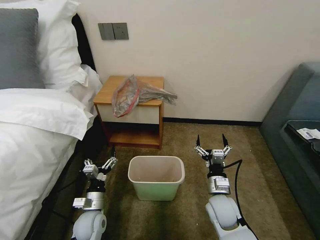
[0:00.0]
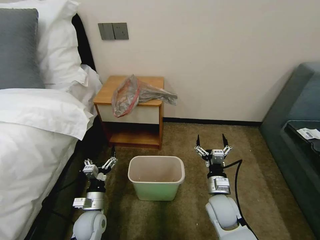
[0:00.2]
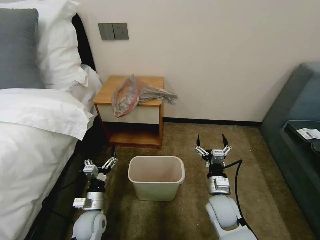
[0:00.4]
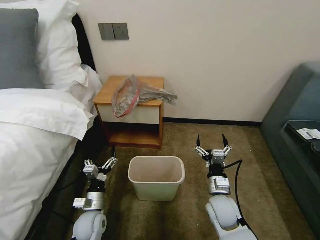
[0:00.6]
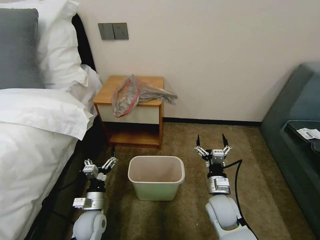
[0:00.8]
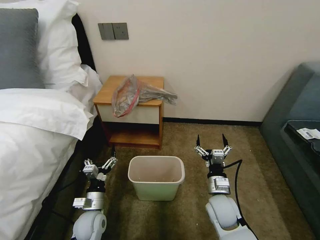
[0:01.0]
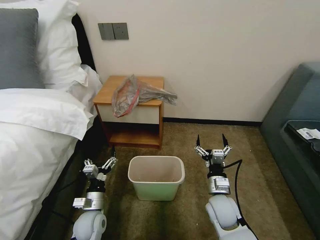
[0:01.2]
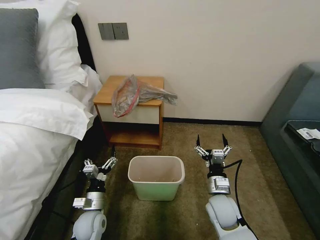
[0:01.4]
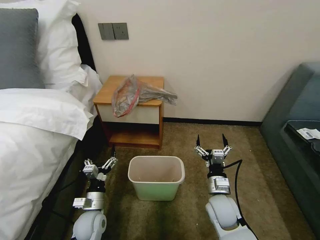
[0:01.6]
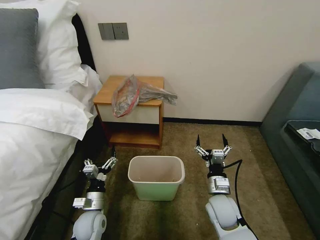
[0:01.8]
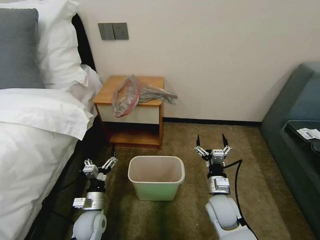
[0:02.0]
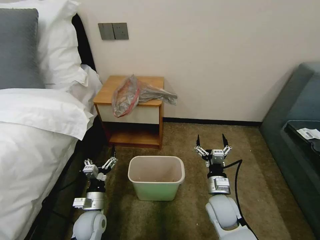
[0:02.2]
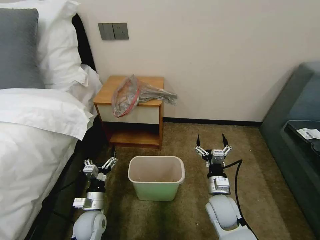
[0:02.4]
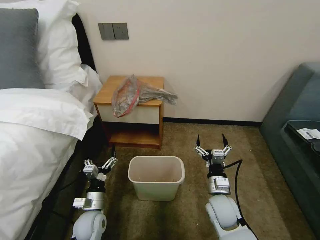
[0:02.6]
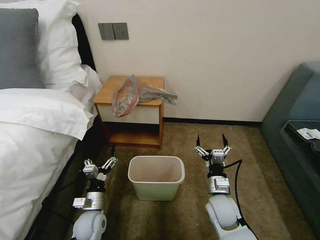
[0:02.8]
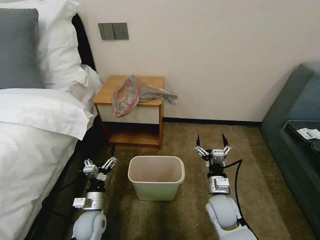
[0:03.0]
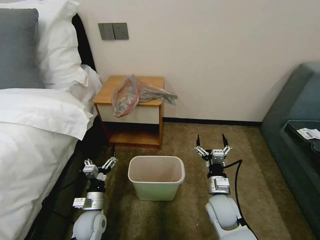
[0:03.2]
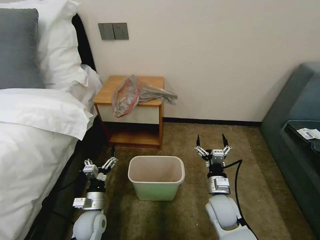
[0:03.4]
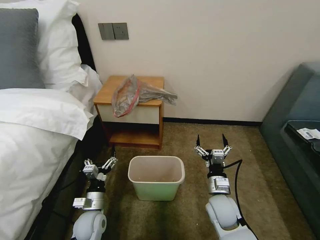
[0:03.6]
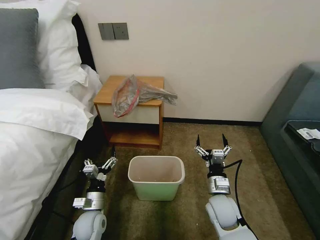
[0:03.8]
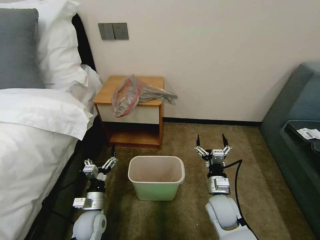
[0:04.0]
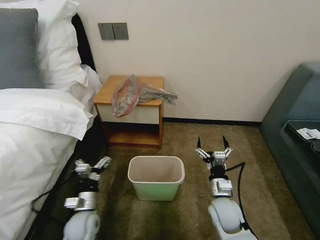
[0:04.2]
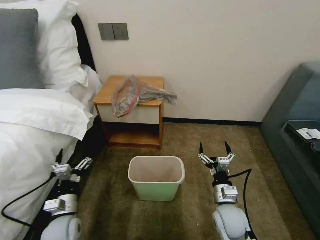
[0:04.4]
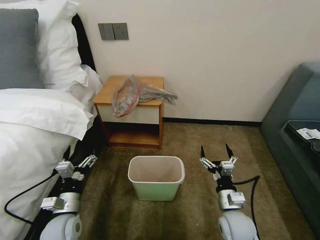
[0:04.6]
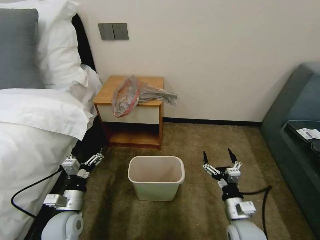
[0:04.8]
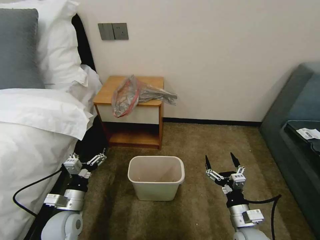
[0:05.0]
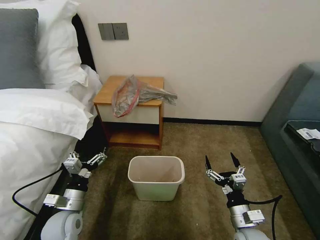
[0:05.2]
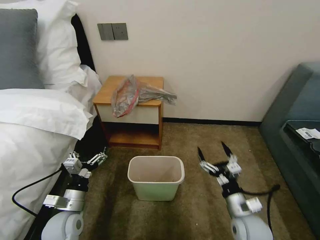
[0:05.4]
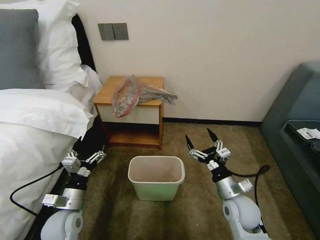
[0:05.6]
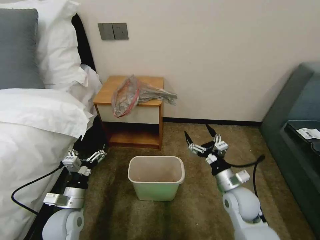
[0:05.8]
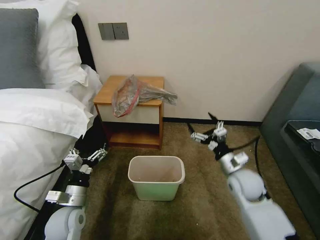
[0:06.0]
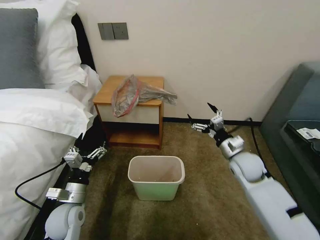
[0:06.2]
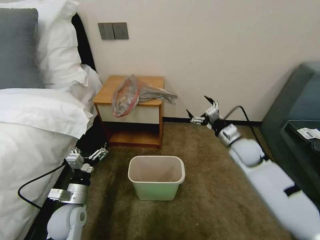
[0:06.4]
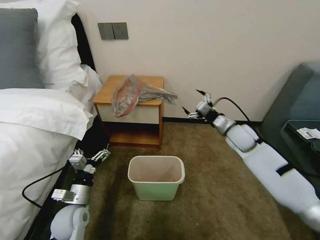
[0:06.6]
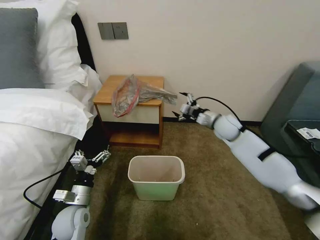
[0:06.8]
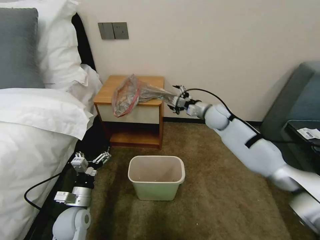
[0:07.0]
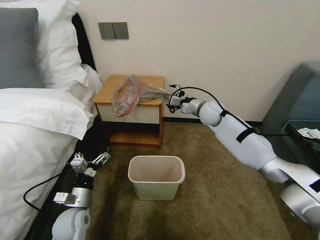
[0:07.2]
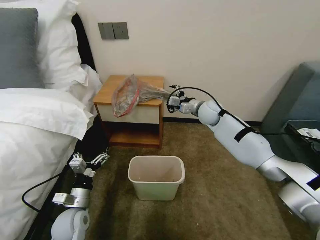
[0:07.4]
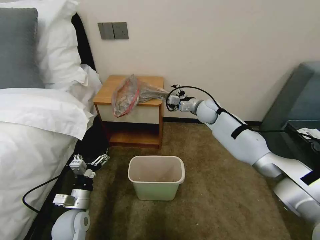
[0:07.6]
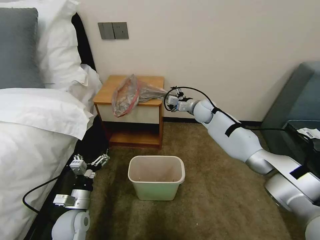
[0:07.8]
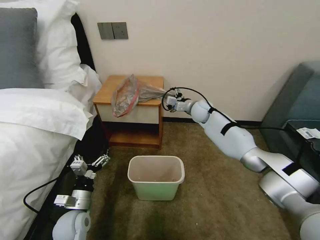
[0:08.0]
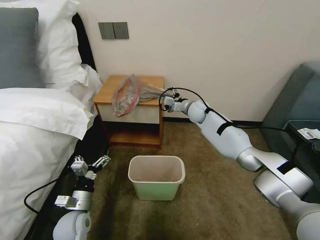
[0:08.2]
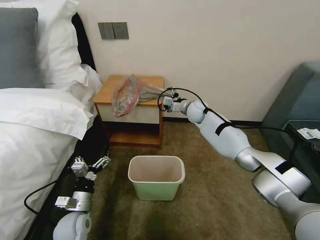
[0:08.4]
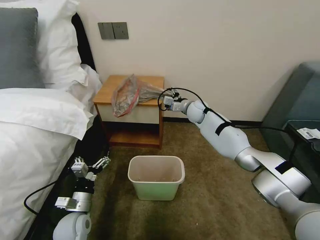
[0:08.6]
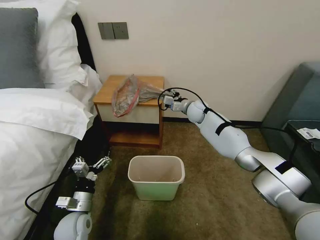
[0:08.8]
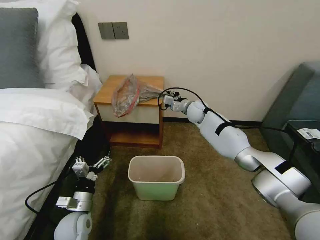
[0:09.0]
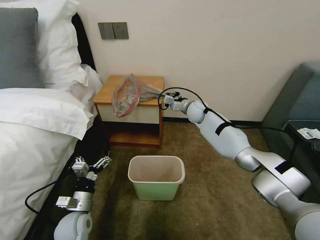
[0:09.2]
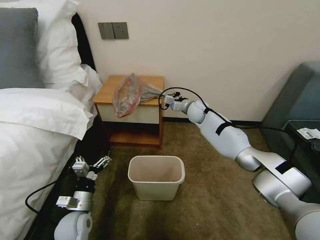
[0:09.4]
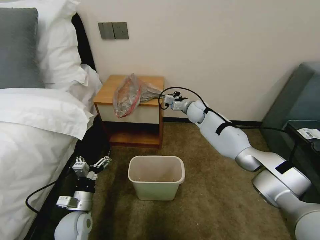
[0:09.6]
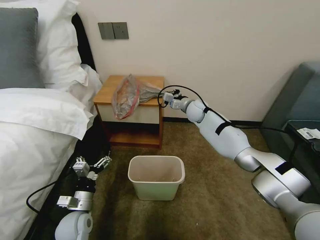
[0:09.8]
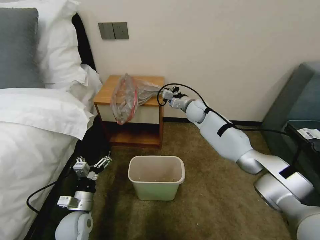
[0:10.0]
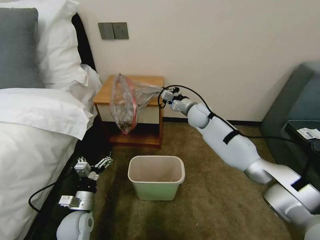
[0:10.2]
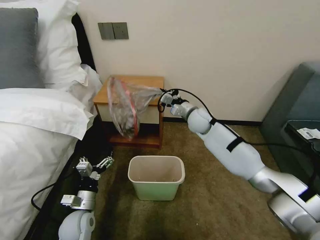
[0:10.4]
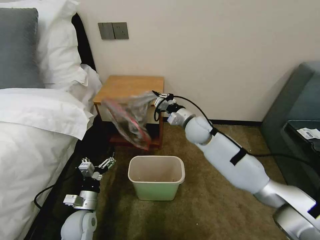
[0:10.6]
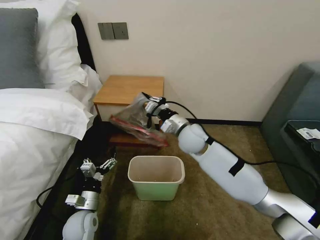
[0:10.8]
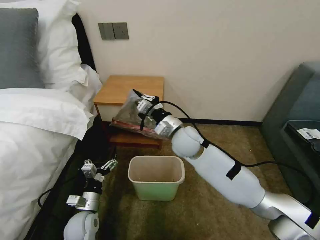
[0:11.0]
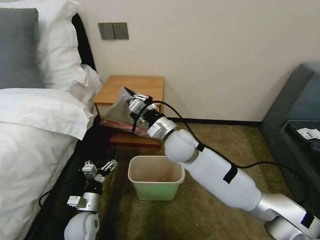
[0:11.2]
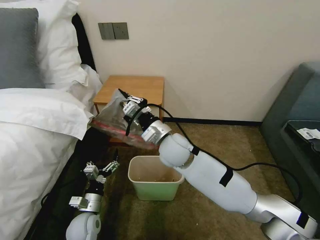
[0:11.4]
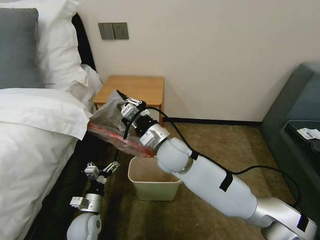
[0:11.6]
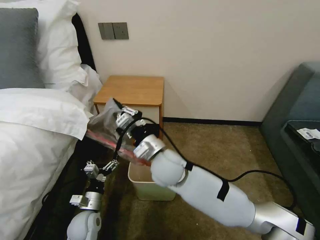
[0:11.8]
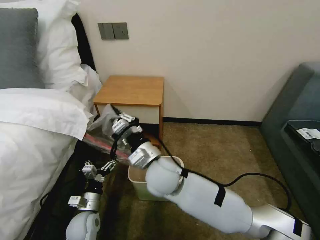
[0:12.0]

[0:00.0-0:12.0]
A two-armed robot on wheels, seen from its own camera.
Task of the whole recording: Pick up the garbage bag from the table and place it over the trash can.
0:01.6 to 0:03.0: Both grippers stay put.
0:03.0 to 0:04.4: The left gripper heads to the left, covering roughly 5 cm.
0:04.4 to 0:06.0: The right gripper heads forward and upward, covering roughly 10 cm.
0:06.0 to 0:07.6: The right gripper goes approximately 30 cm forward.
0:07.6 to 0:09.0: The right gripper shifts by roughly 5 cm, and closes.
0:09.0 to 0:10.4: The right gripper moves backward, some 10 cm, and closes its fingers.
0:10.4 to 0:12.0: The right gripper is displaced backward and to the left by some 30 cm.

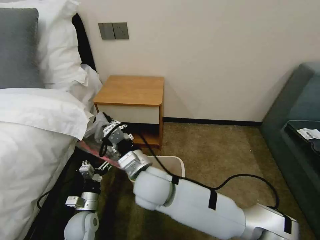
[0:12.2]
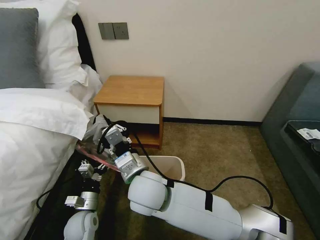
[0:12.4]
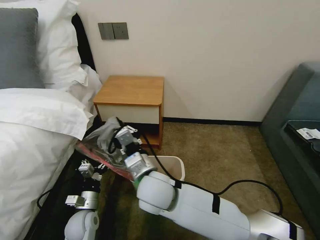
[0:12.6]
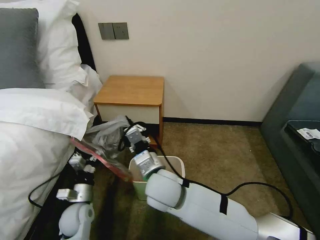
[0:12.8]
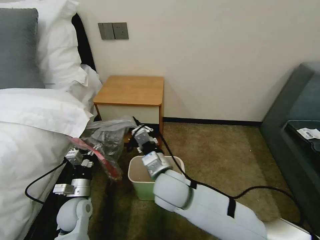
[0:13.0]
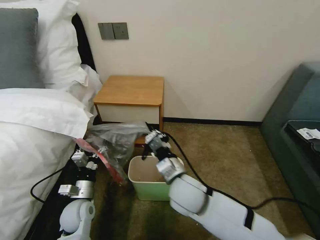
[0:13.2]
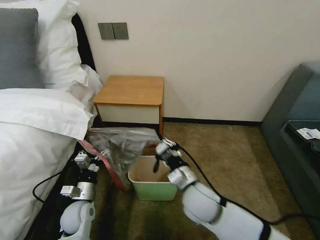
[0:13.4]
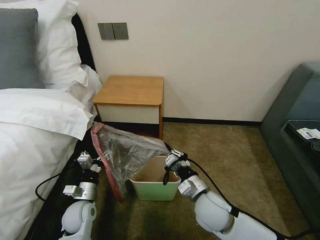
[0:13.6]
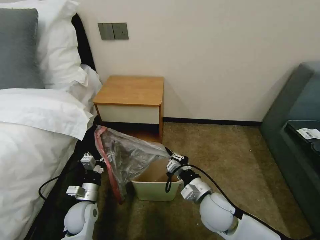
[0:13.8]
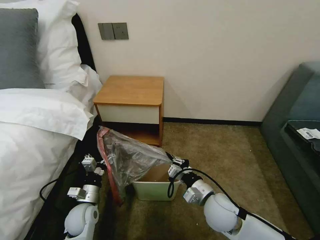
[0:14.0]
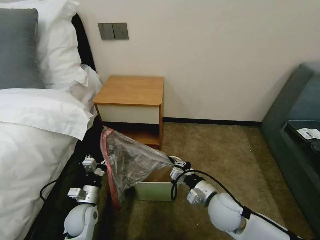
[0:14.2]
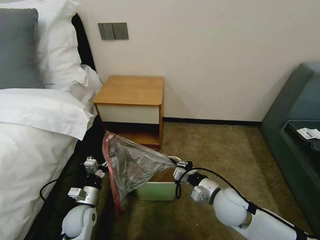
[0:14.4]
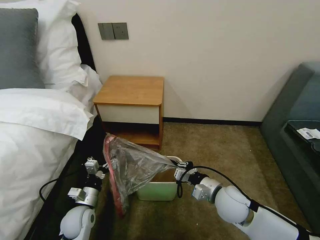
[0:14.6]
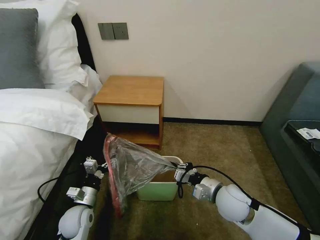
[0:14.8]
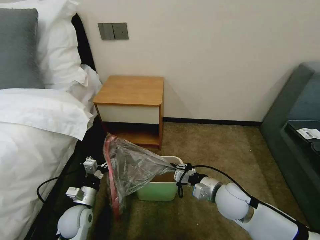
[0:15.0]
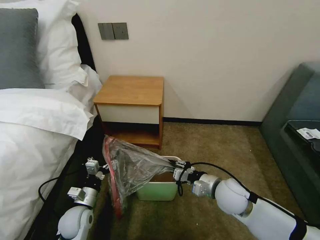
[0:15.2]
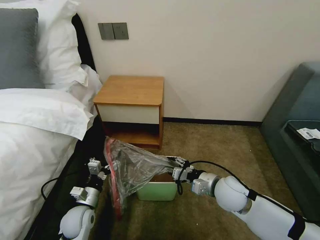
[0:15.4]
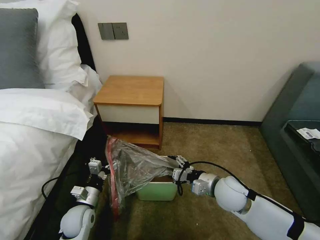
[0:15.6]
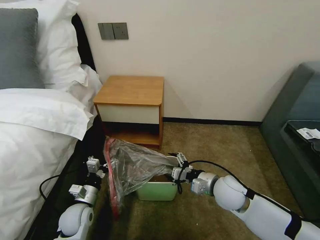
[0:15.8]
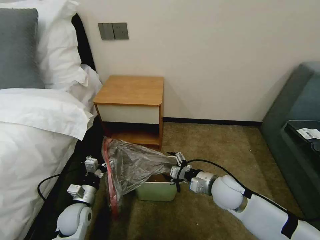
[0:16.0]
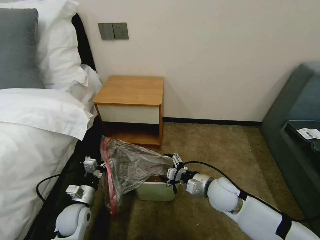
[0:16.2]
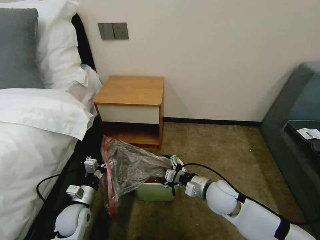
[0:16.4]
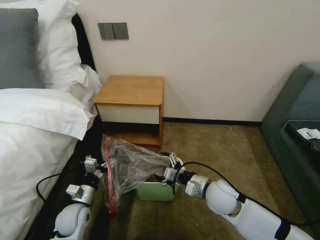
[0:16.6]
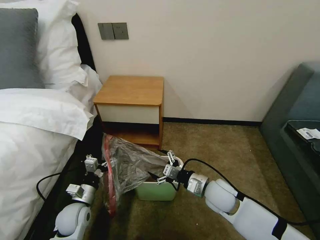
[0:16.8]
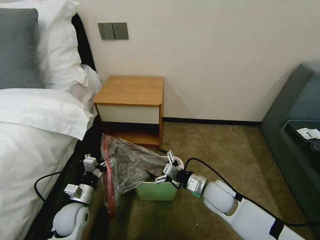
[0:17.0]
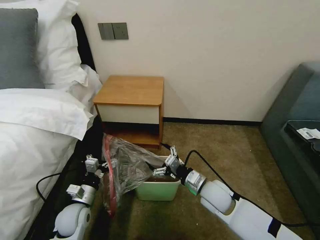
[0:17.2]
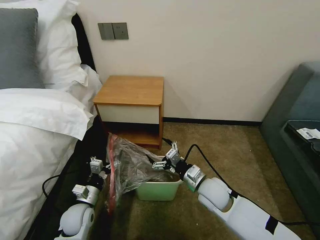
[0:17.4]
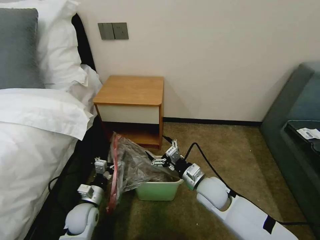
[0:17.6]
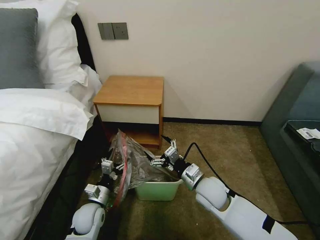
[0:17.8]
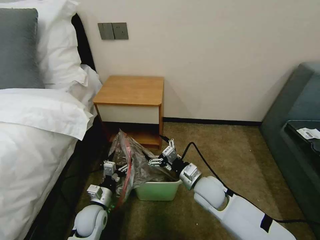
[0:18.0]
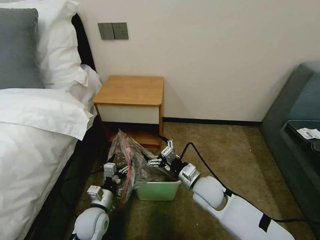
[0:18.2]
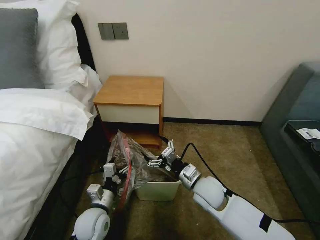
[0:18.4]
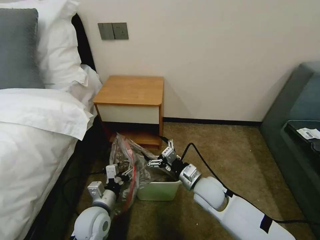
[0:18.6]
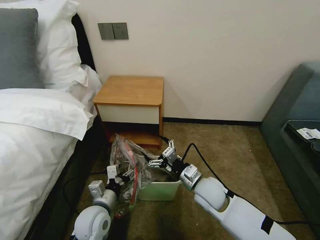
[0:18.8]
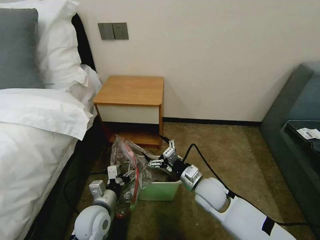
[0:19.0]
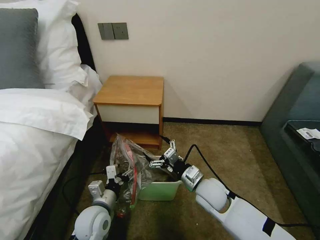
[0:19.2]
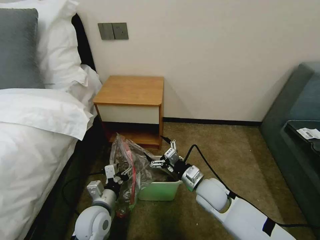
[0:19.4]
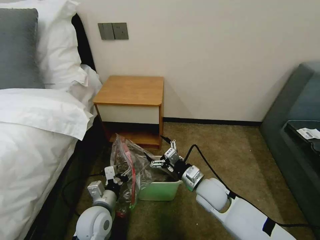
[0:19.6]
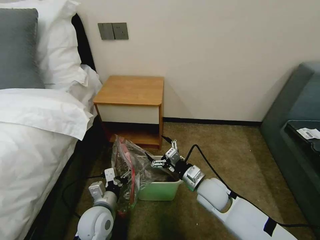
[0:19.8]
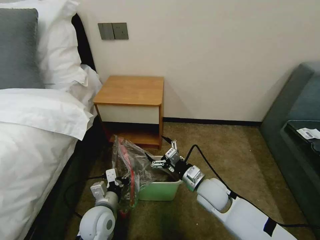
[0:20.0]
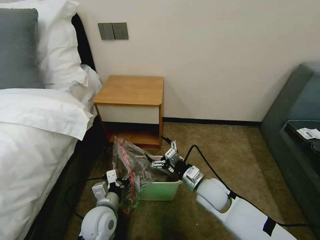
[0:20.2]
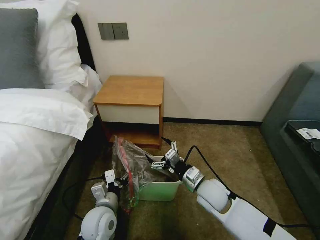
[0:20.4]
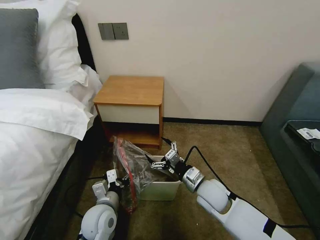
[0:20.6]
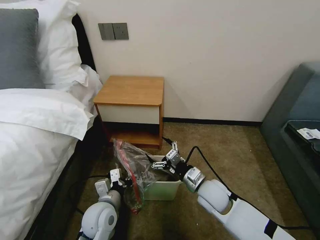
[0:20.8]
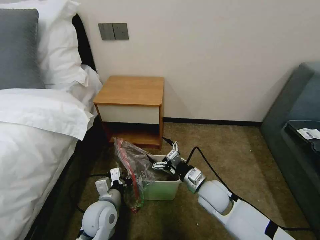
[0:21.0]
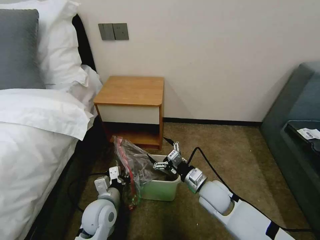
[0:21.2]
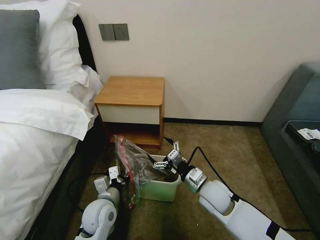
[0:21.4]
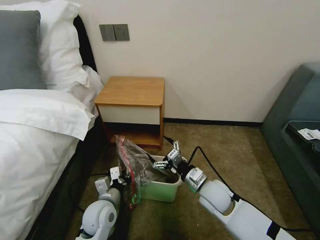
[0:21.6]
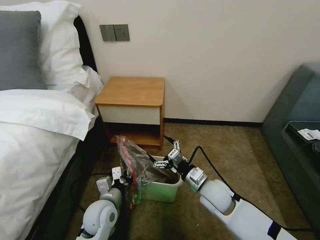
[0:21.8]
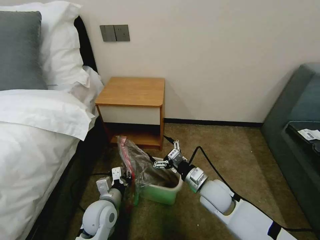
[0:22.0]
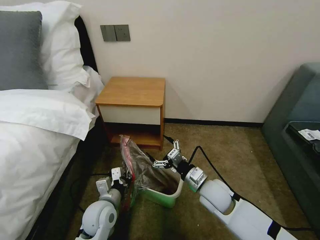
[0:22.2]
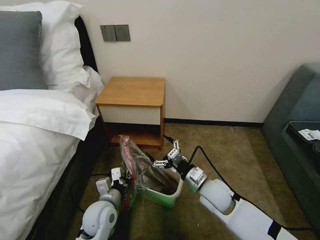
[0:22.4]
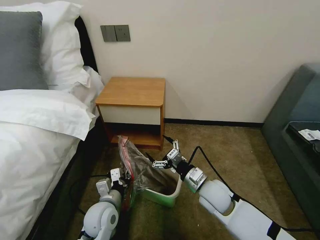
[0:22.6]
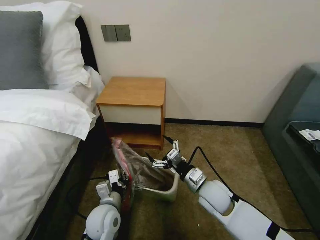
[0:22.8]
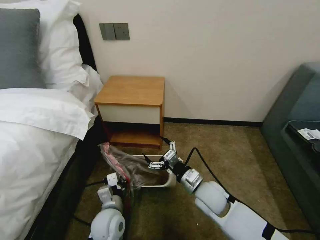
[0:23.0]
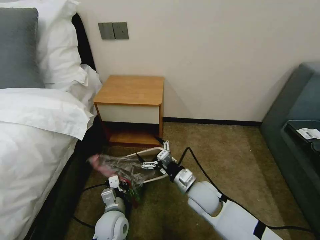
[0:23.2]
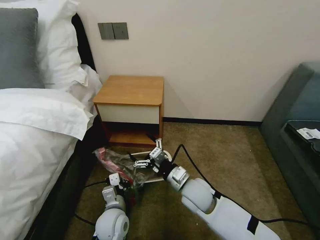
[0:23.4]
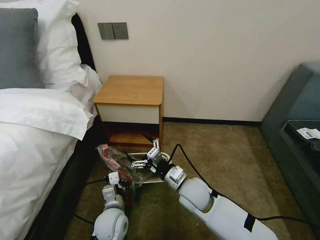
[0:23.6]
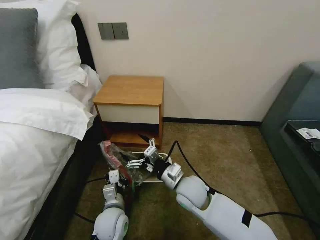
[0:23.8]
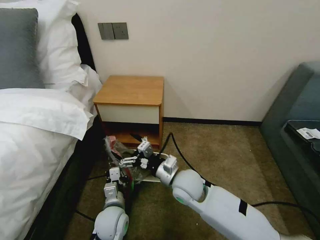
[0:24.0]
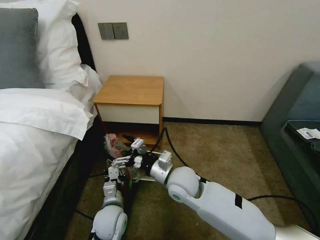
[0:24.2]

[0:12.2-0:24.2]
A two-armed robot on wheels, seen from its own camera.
Task of the whole recording: Pick up the garbage bag from the table and place it over the trash can.
0:12.2 to 0:13.8: The right gripper is displaced to the right and downward by approximately 25 cm.
0:13.8 to 0:15.2: The right gripper heads to the right, covering about 5 cm.
0:15.2 to 0:16.6: The right gripper opens its fingers.
0:16.6 to 0:18.2: The left gripper heads to the right, covering roughly 5 cm.
0:18.2 to 0:19.8: The left gripper shifts by about 5 cm.
0:19.8 to 0:21.2: The left gripper closes its fingers.
0:21.2 to 0:22.6: The left gripper closes.
0:22.6 to 0:24.2: The right gripper moves to the left and upward, roughly 15 cm.
